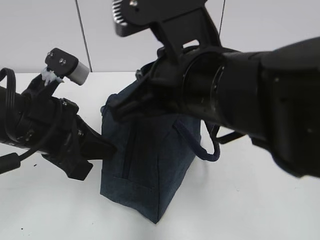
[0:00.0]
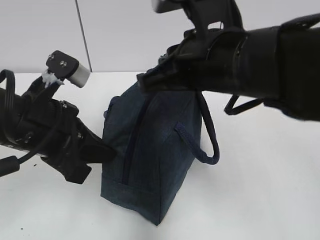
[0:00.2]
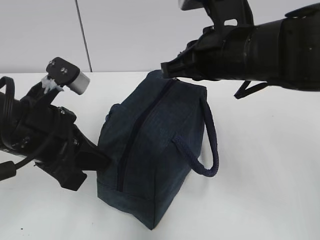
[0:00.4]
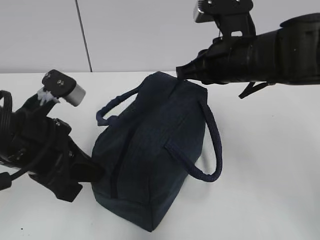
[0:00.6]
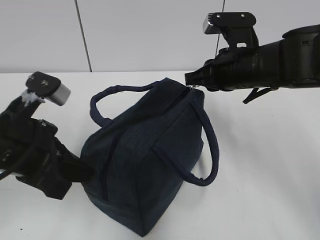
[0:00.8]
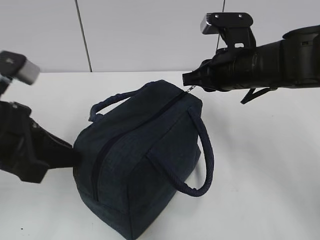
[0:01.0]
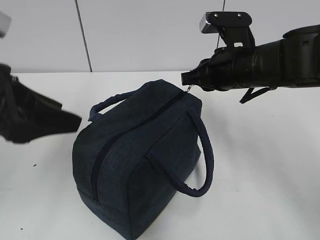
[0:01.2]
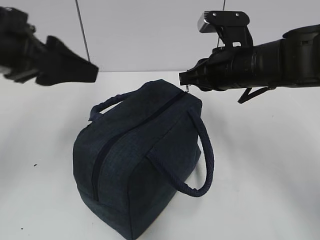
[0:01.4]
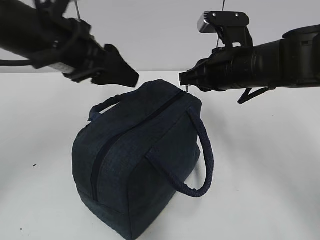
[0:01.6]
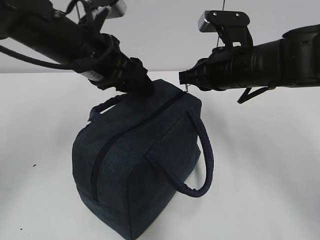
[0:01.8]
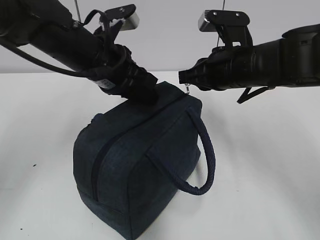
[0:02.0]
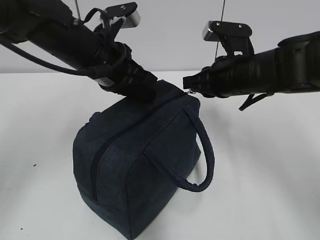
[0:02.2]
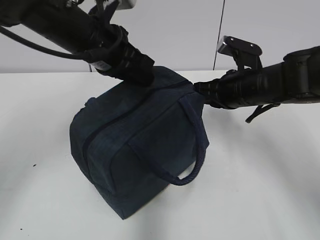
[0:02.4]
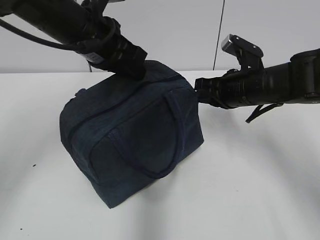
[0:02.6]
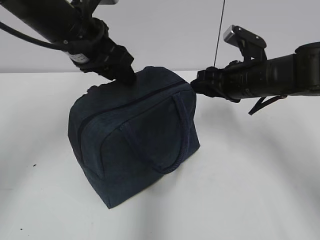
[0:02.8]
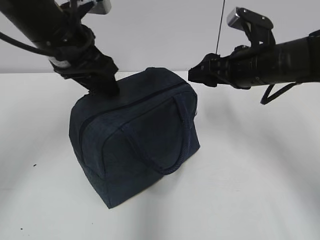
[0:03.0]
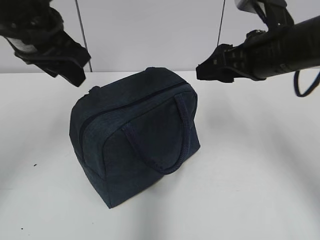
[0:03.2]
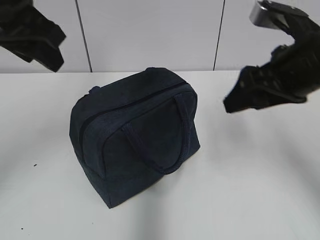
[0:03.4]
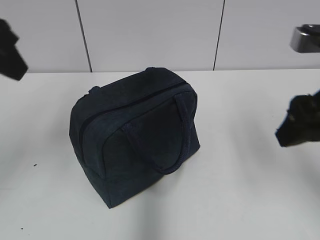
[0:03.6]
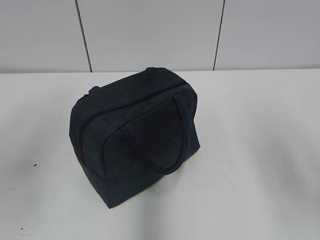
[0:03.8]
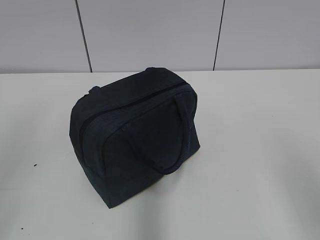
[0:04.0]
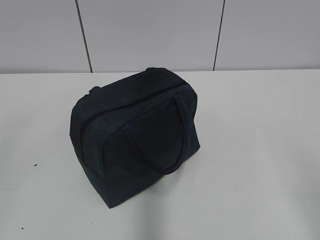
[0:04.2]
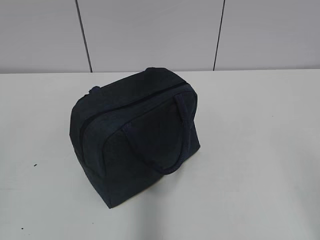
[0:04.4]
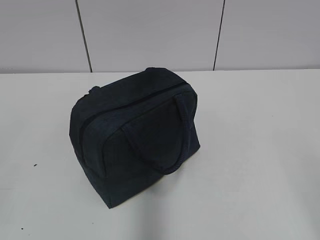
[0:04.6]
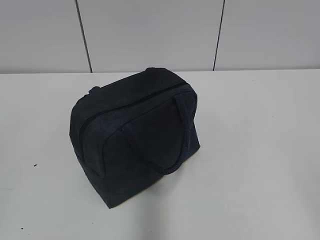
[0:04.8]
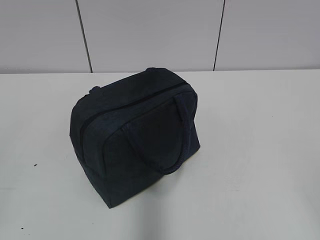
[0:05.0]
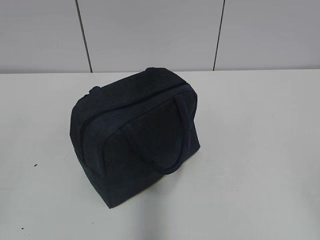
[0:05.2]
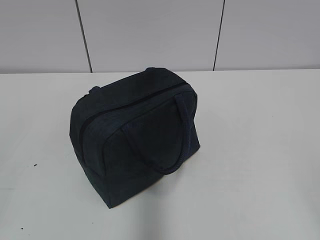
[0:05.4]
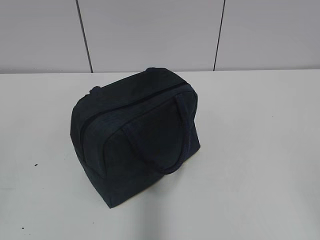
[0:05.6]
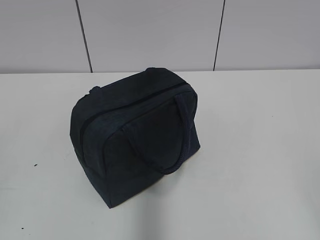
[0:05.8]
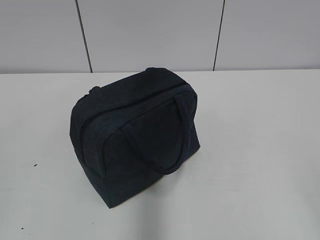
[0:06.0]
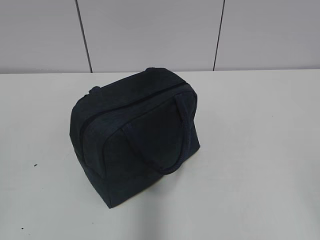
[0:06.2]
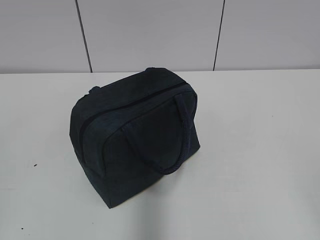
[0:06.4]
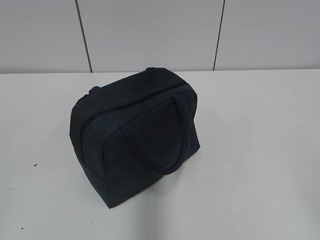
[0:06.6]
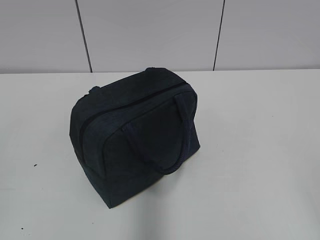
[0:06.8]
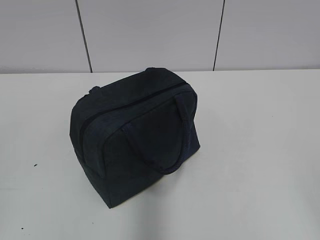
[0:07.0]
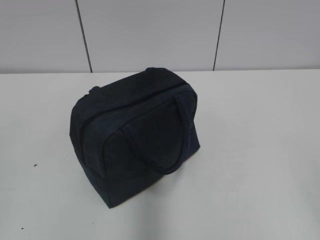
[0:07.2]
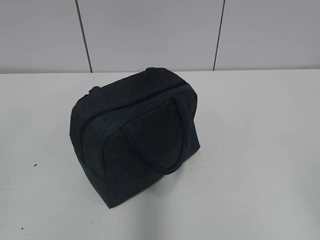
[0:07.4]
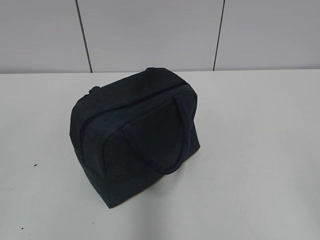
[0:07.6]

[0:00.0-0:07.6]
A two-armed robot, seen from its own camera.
Step, 0:01.0 to 0:02.6: Pull the zipper with your right hand.
0:00.0 to 0:01.6: The right gripper travels forward, to the right and downward by approximately 15 cm; the left gripper goes approximately 10 cm forward and upward, and opens.
0:01.6 to 0:03.0: The left gripper closes, then reopens; the right gripper opens.
0:03.0 to 0:04.6: The left gripper is displaced backward and to the left by roughly 40 cm; the right gripper is displaced backward by about 35 cm.
0:06.0 to 0:07.6: Both grippers stay about where they are.
